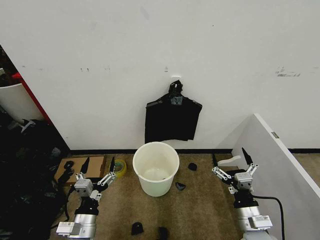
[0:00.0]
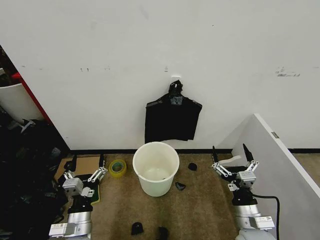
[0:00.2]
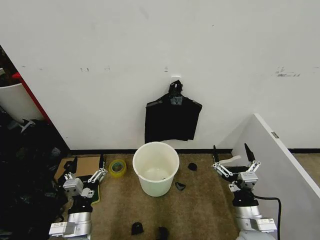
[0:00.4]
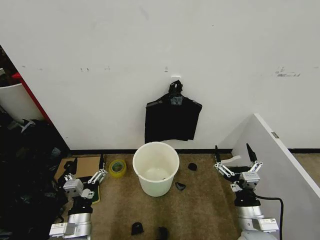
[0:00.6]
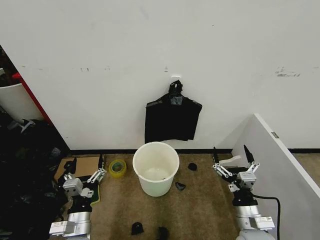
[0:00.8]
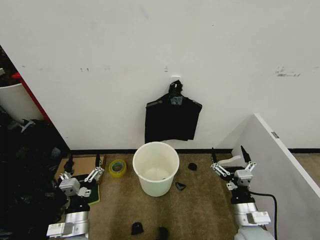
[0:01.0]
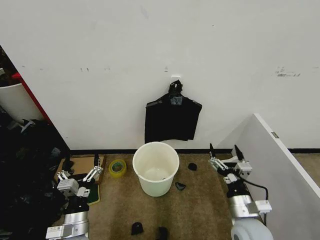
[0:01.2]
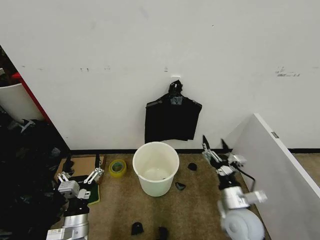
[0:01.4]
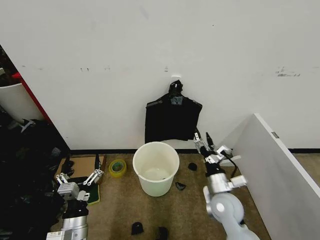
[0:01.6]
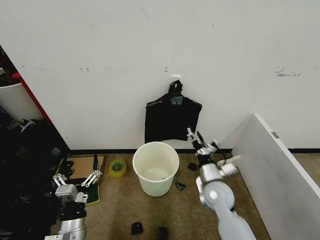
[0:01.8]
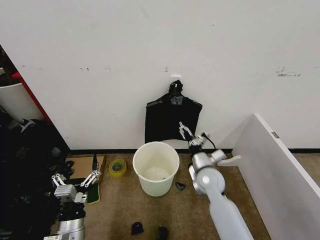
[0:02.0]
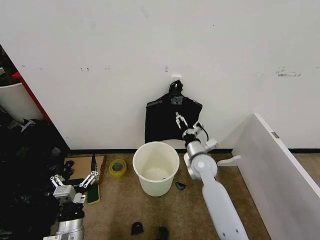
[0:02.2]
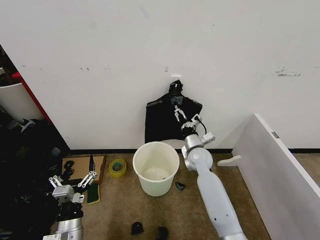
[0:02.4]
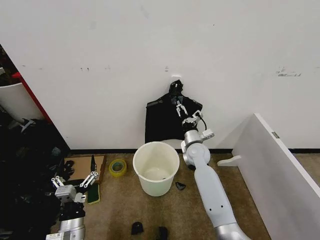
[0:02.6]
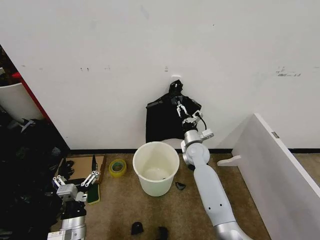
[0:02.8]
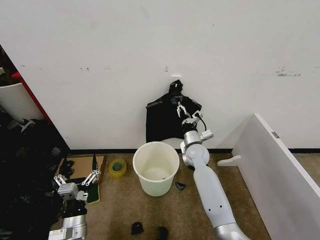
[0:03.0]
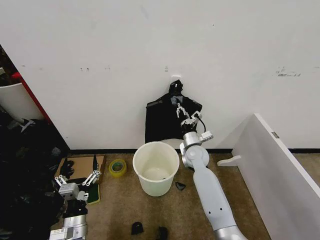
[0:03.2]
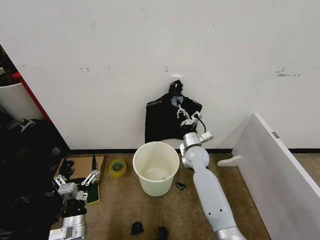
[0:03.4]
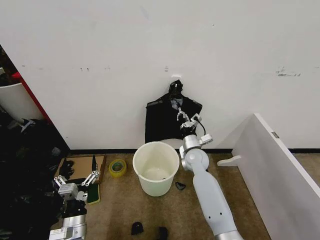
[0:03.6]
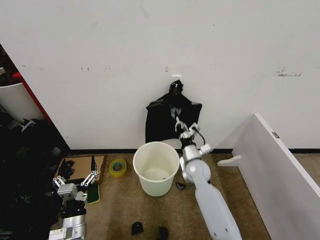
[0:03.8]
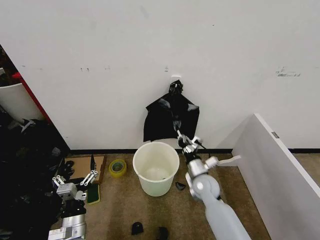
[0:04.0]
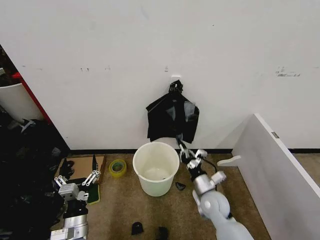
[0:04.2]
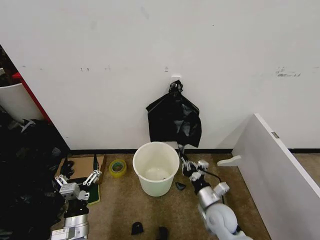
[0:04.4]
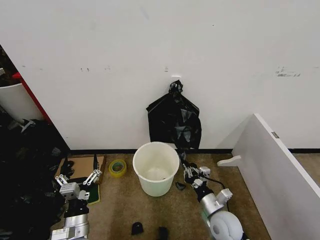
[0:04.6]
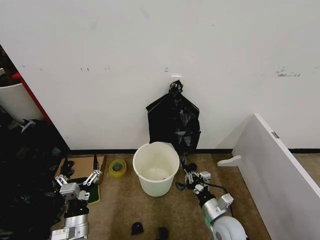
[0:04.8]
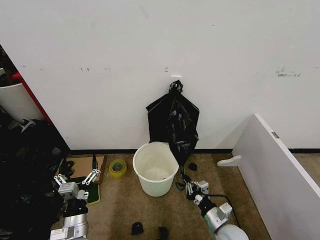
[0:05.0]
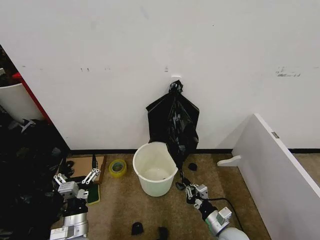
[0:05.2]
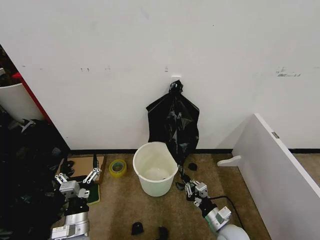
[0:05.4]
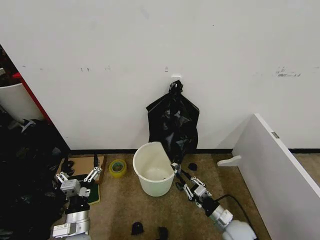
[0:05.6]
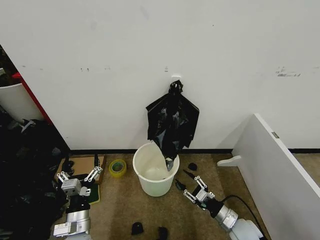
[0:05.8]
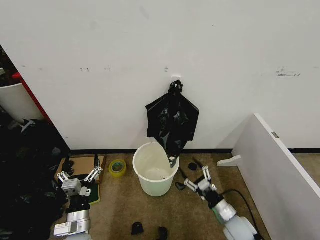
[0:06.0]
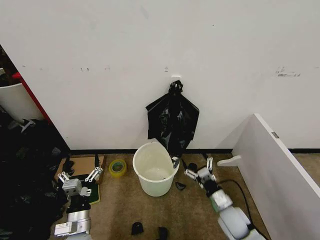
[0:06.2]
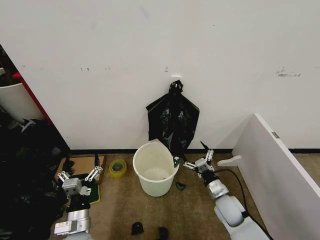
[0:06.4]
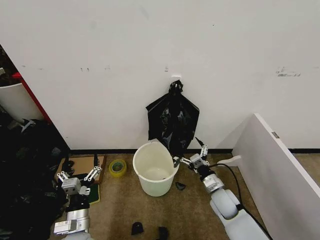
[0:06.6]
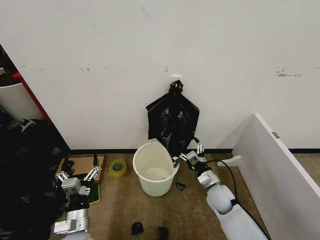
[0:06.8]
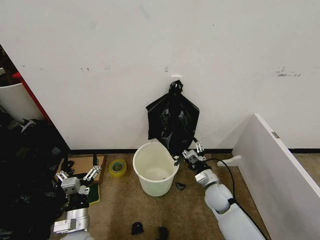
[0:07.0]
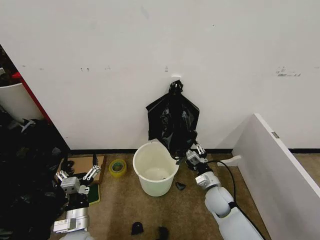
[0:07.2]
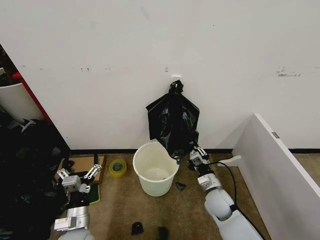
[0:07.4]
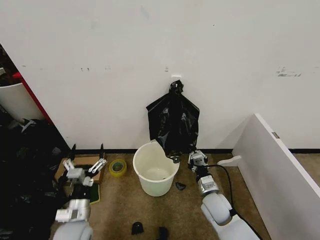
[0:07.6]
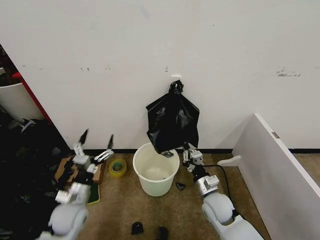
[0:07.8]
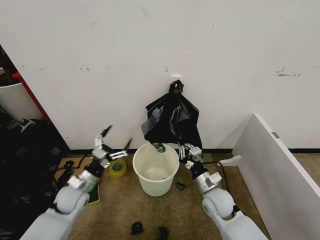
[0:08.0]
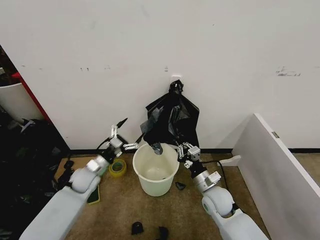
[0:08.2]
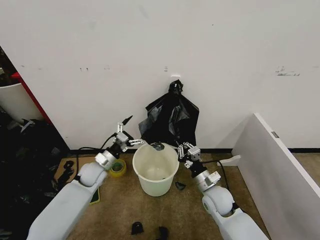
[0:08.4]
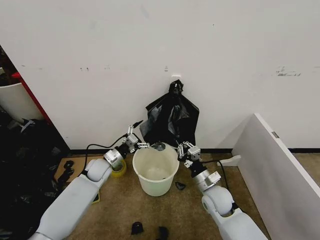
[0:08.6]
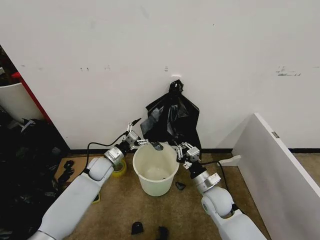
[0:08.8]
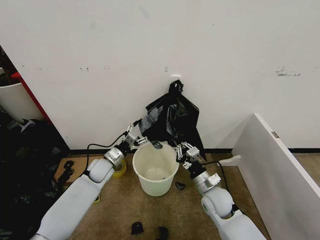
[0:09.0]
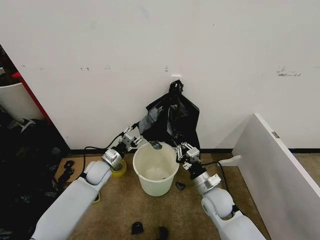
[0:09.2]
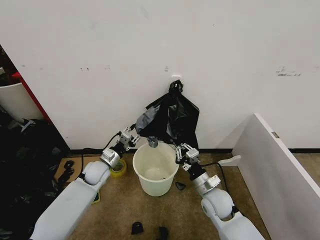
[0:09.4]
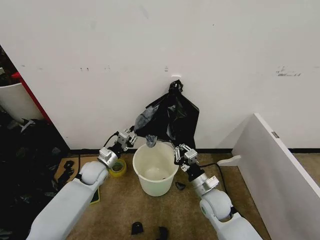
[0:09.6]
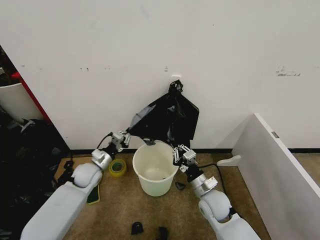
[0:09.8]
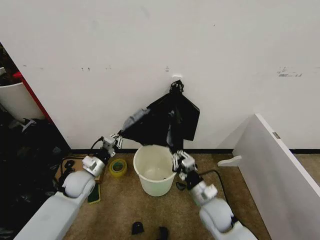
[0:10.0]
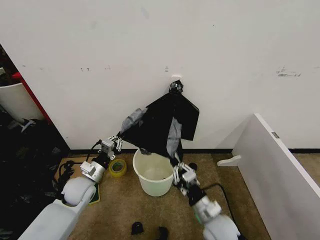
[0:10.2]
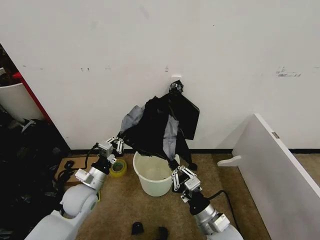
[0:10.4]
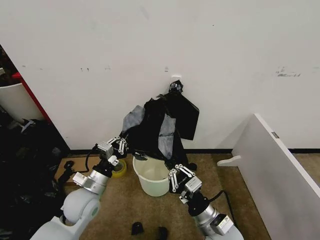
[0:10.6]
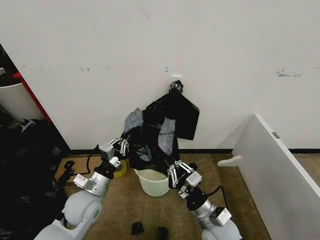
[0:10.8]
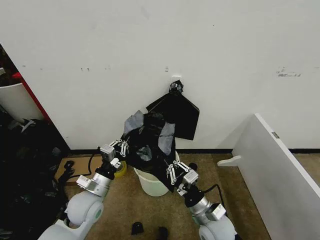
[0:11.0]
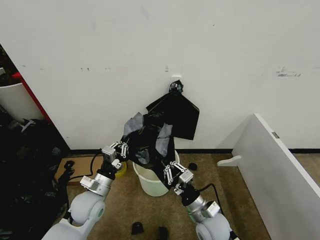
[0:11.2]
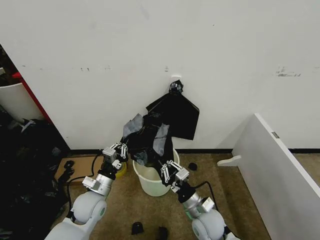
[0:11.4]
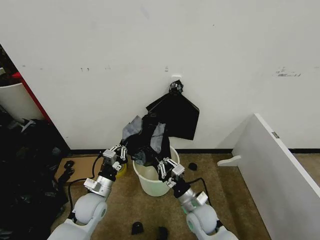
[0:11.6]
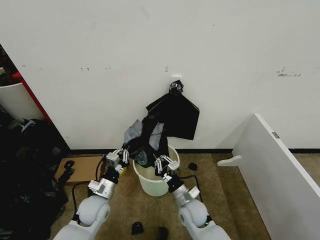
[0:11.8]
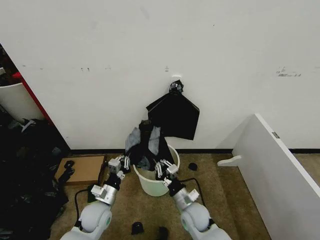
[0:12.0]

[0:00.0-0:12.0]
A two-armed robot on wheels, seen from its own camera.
Task of the whole recording: Place the garbage bag over the trash bin.
0:01.6 to 0:03.0: The right gripper moves forward, approximately 20 cm, and closes up.
0:03.0 to 0:04.4: The right gripper heads backward, covering some 20 cm, and closes its fingers.
0:04.4 to 0:06.0: The right gripper moves to the right, approximately 5 cm, and opens its fingers.
0:06.0 to 0:07.6: The right gripper is displaced to the left and forward by approximately 10 cm, and closes up.
0:07.6 to 0:09.0: The left gripper goes some 20 cm forward.
0:09.0 to 0:10.4: Both grippers move backward, some 10 cm. The left gripper closes up.
0:10.4 to 0:12.0: The left gripper is displaced downward by approximately 10 cm; the right gripper travels forward, downward and to the left by some 15 cm.

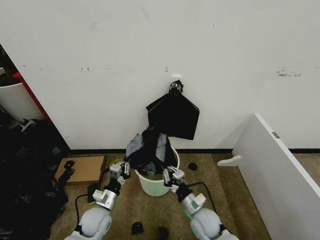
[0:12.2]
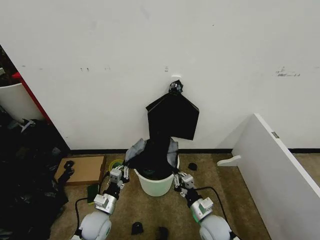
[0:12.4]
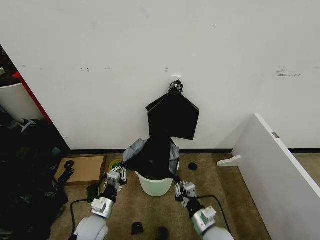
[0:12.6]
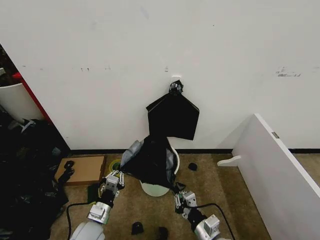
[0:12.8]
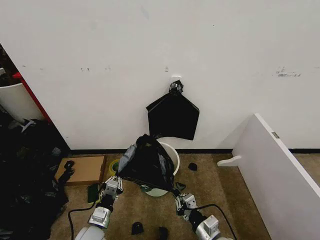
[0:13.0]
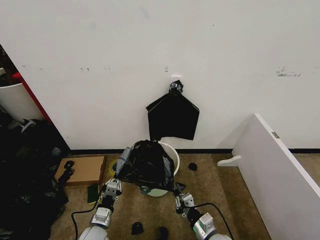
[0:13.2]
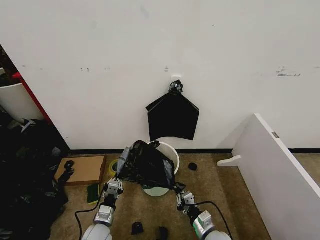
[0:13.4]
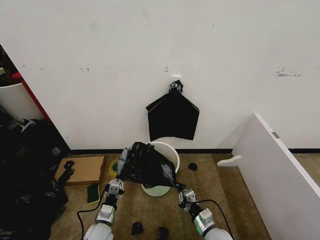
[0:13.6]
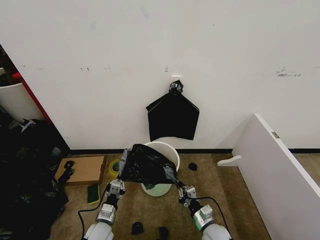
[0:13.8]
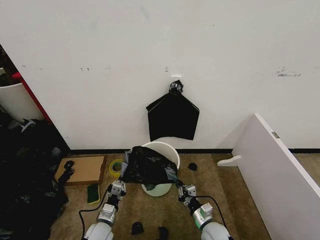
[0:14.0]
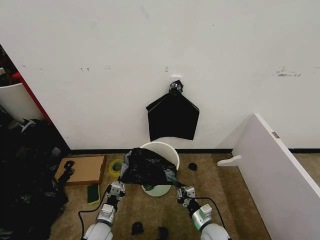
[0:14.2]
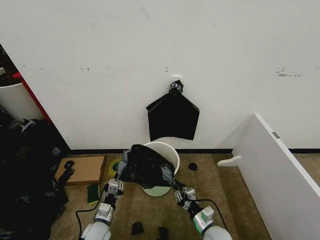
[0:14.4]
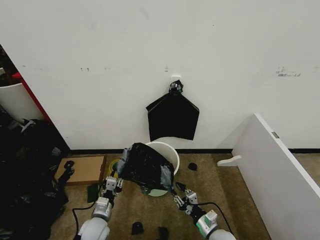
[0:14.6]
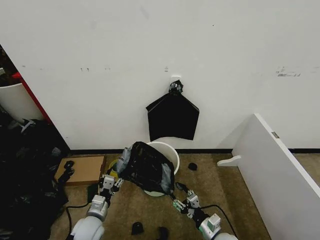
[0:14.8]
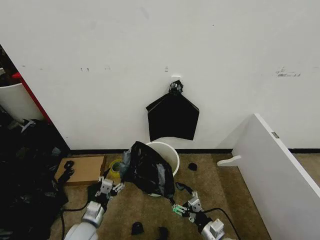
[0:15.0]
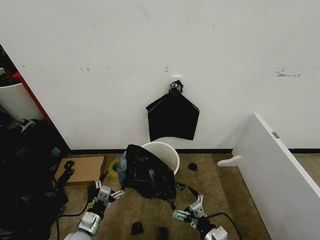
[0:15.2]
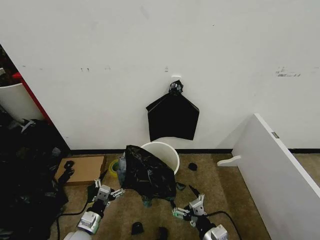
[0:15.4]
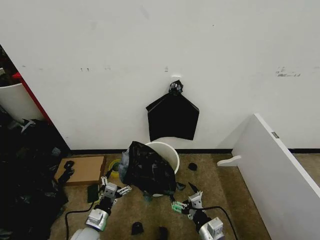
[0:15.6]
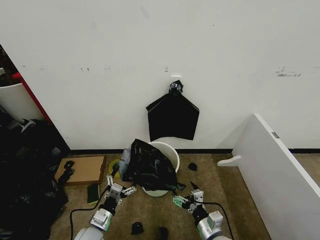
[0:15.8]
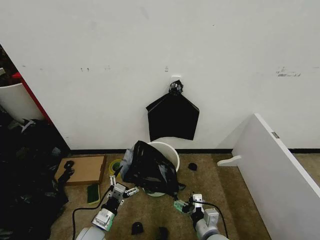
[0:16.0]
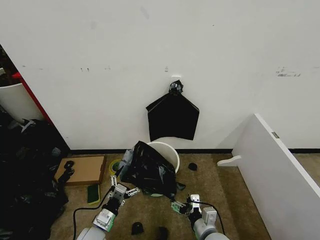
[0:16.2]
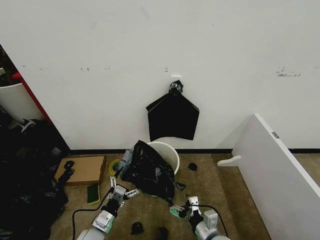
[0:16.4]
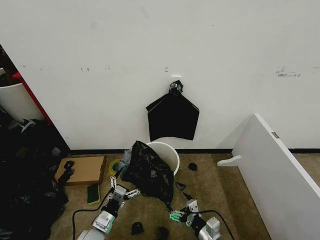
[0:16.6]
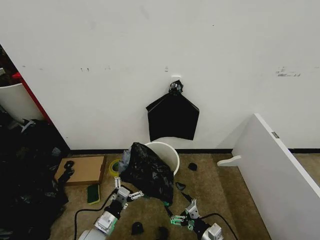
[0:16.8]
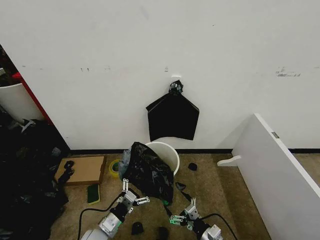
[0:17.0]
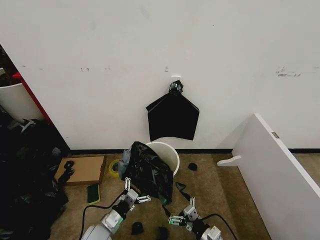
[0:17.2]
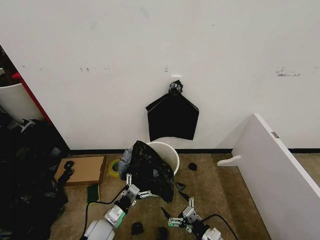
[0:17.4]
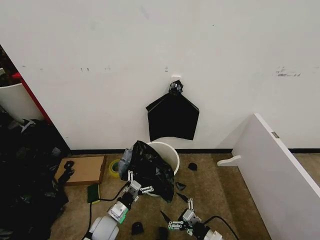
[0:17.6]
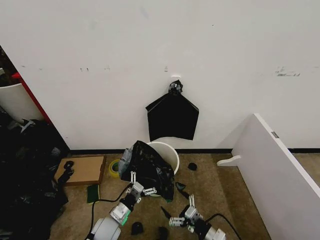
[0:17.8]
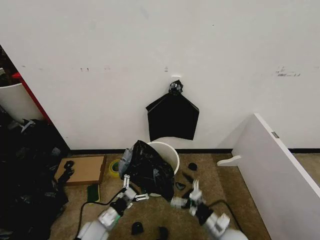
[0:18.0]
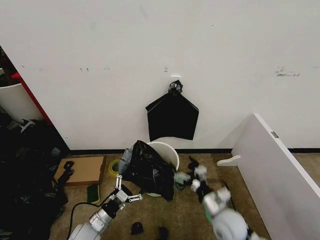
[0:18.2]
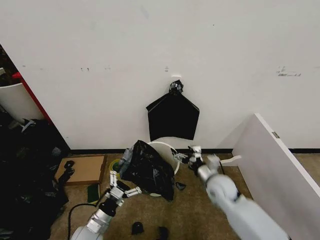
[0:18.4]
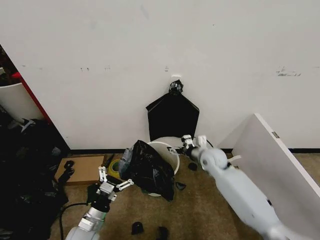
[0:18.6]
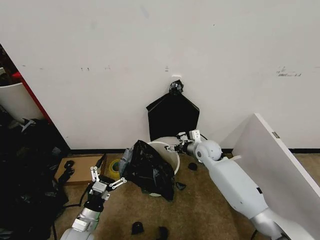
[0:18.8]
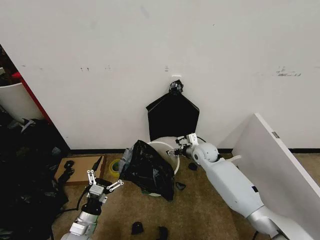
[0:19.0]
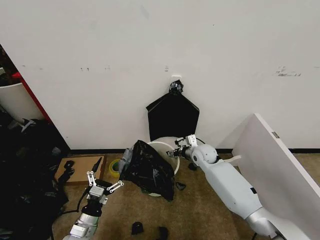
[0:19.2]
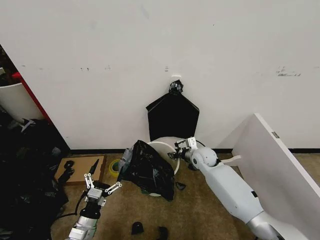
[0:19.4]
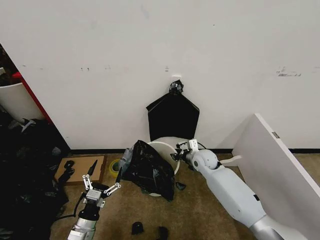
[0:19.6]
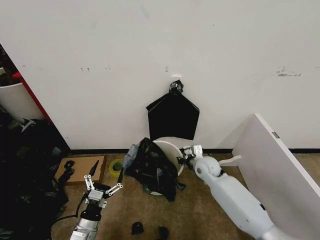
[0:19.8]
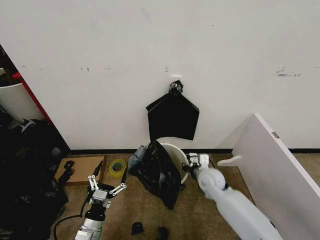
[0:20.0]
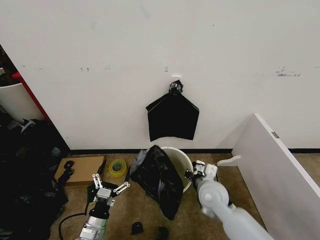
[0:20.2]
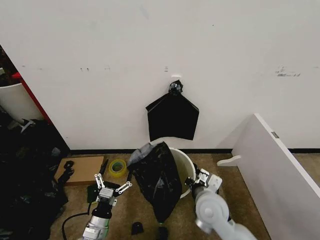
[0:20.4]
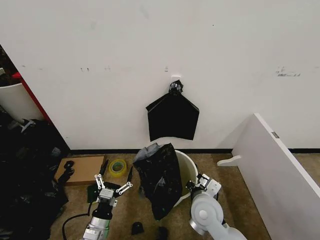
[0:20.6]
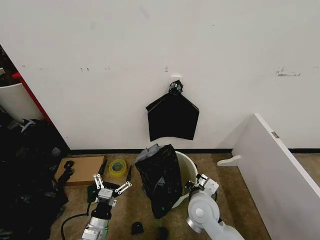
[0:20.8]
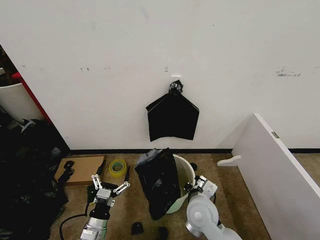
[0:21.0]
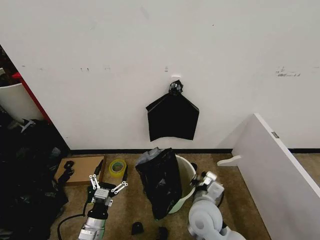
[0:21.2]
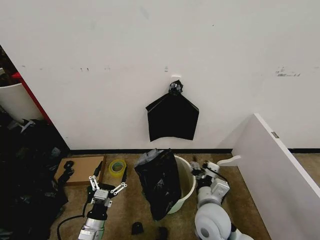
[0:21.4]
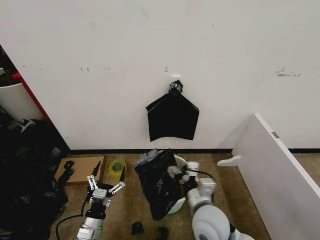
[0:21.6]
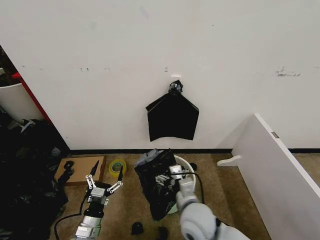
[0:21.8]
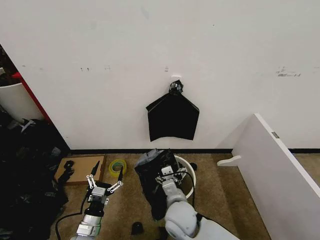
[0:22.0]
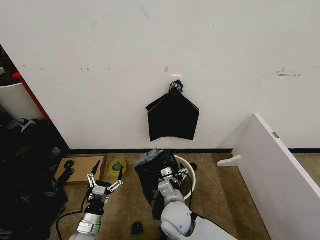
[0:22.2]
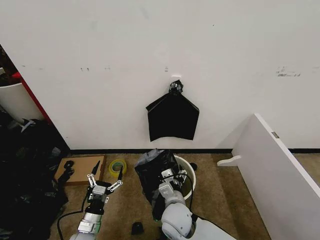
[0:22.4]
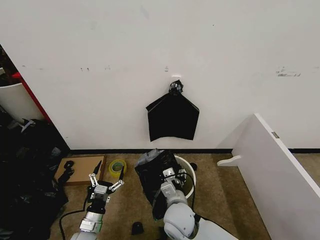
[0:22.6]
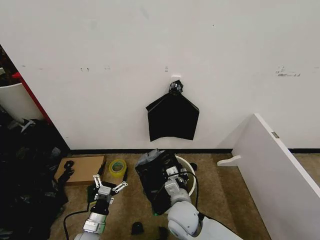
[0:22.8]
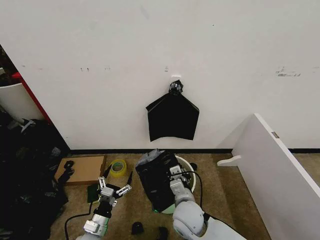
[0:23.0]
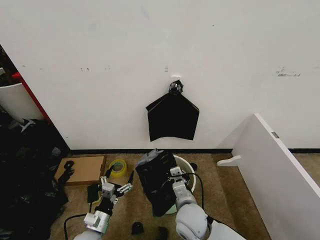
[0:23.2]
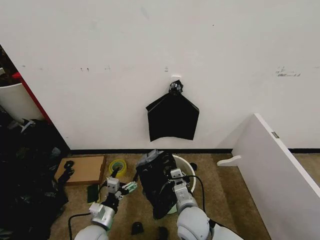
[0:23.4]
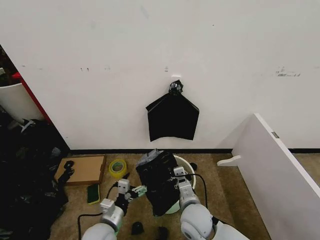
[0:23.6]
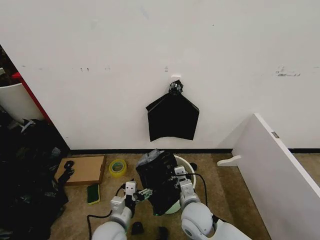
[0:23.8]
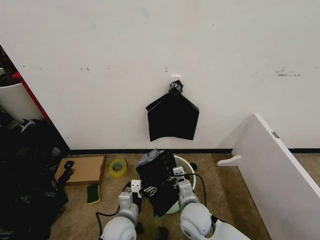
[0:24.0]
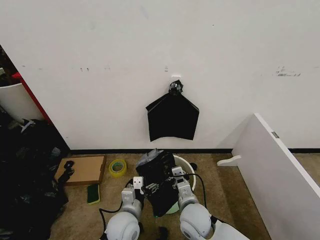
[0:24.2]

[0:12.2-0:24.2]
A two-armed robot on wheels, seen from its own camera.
Task of the whole recording: Place the garbage bag over the trash bin.
0:12.2 to 0:13.8: The grippers both shift downward by approximately 5 cm.
0:13.8 to 0:15.2: The left gripper is displaced upward by about 5 cm, and opens its fingers; the right gripper is displaced backward and upward by some 10 cm, and opens up.
0:16.6 to 0:18.2: The right gripper goes some 10 cm forward and upward.
0:18.2 to 0:19.8: The left gripper changes place by some 5 cm. Meanwhile the right gripper moves forward, about 15 cm, and closes its fingers.
0:19.8 to 0:21.2: The right gripper travels backward by approximately 20 cm.
0:21.2 to 0:22.6: The left gripper moves roughly 5 cm. The right gripper shifts roughly 10 cm to the left, and opens and closes again.
0:22.6 to 0:24.2: The left gripper moves to the right and upward, some 15 cm. Meanwhile the right gripper shifts roughly 5 cm to the right, and closes.
